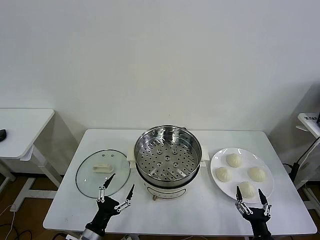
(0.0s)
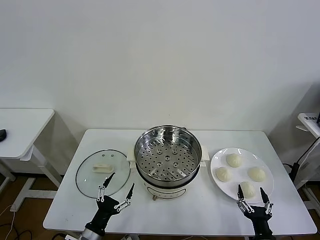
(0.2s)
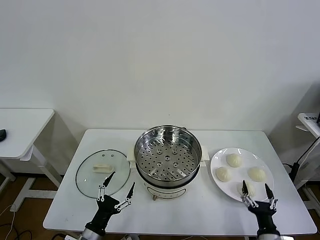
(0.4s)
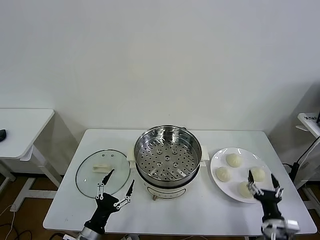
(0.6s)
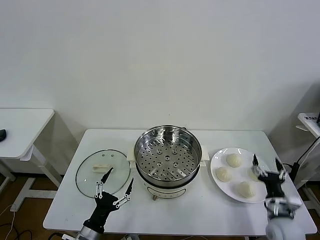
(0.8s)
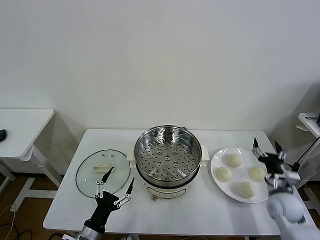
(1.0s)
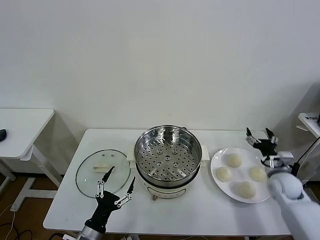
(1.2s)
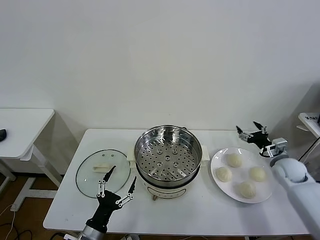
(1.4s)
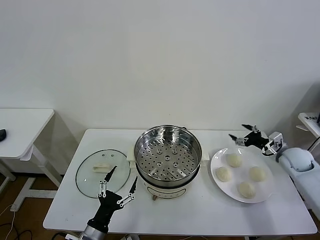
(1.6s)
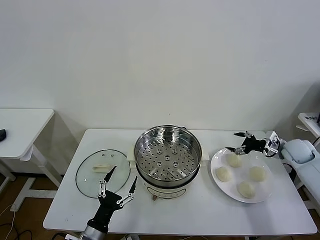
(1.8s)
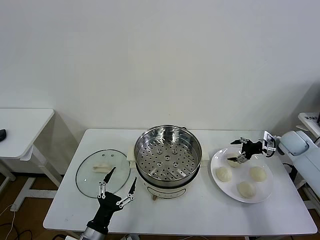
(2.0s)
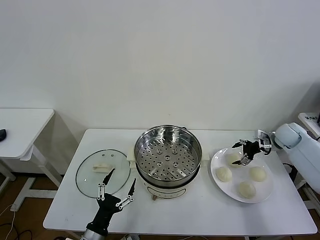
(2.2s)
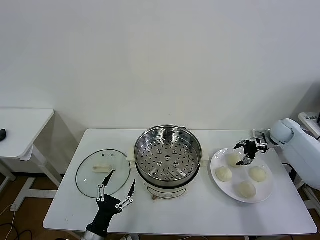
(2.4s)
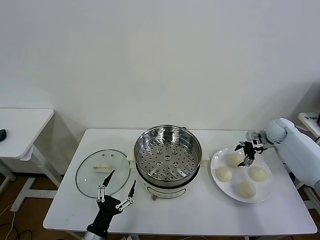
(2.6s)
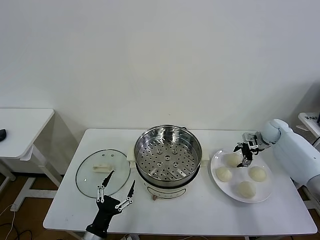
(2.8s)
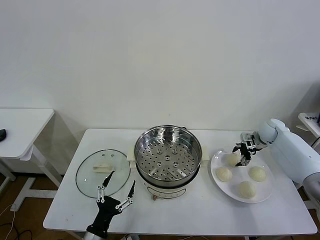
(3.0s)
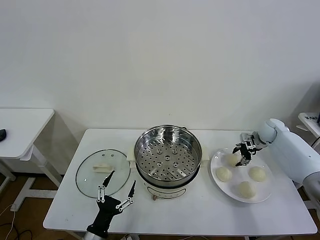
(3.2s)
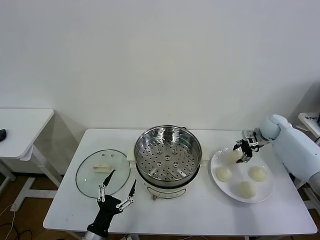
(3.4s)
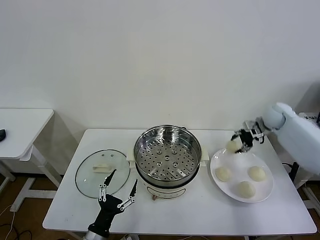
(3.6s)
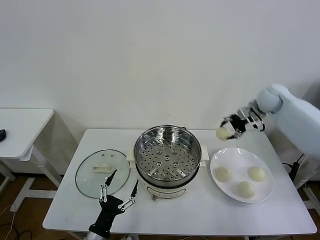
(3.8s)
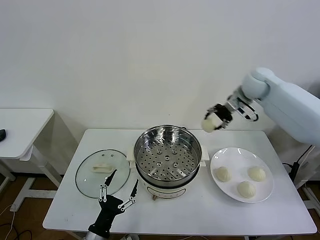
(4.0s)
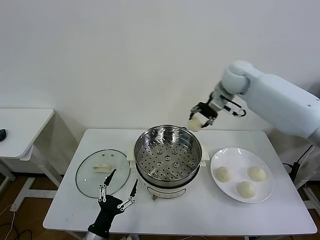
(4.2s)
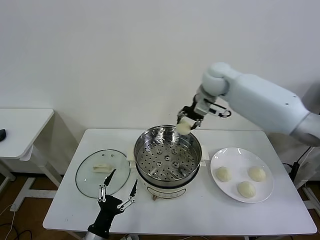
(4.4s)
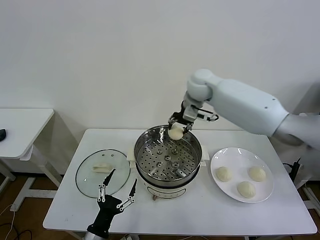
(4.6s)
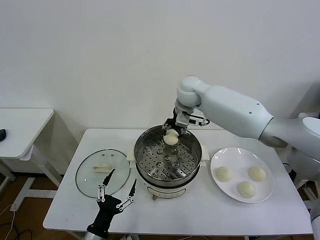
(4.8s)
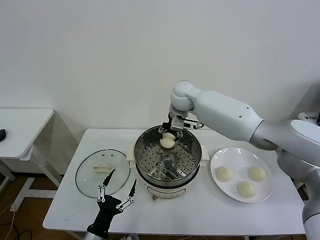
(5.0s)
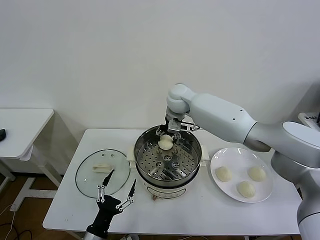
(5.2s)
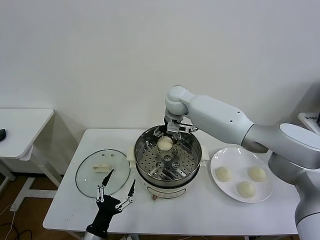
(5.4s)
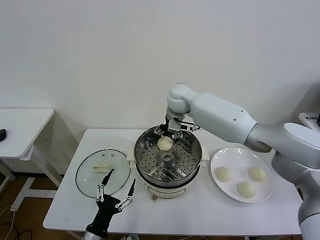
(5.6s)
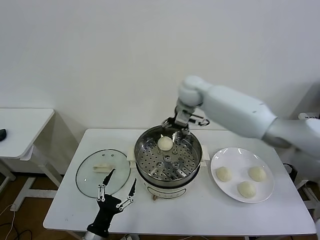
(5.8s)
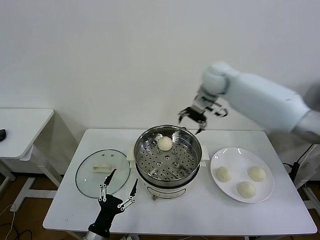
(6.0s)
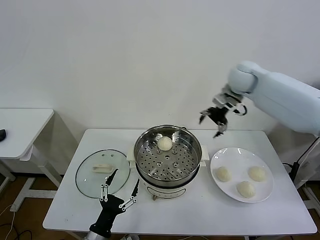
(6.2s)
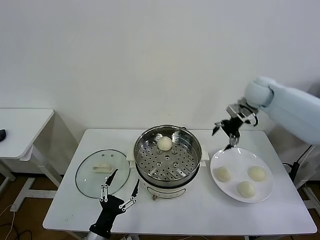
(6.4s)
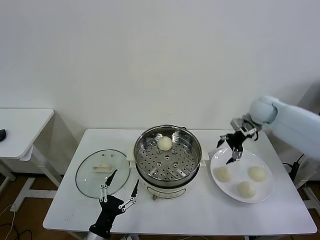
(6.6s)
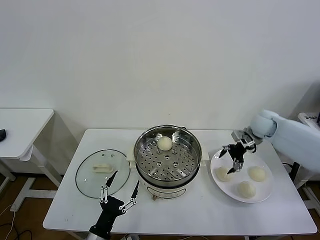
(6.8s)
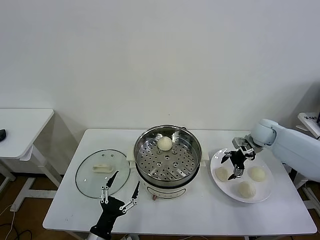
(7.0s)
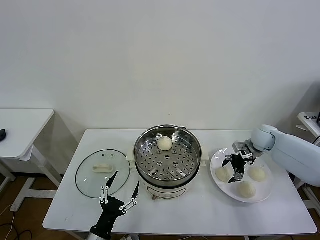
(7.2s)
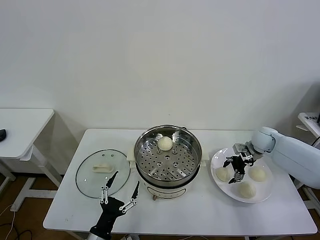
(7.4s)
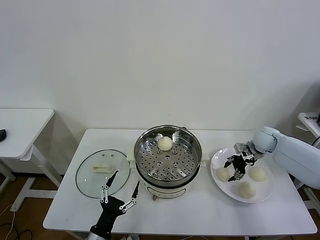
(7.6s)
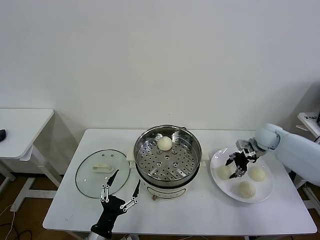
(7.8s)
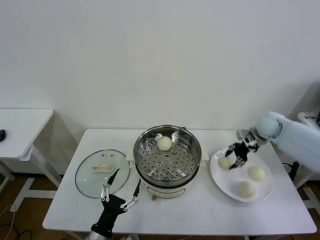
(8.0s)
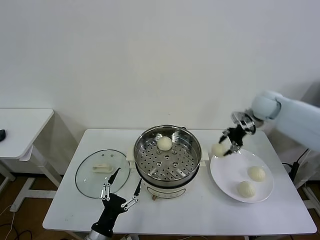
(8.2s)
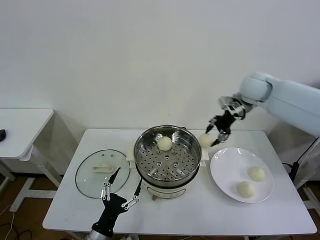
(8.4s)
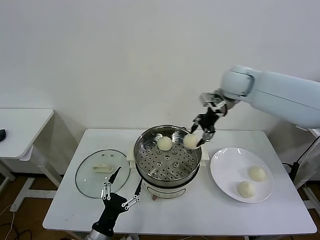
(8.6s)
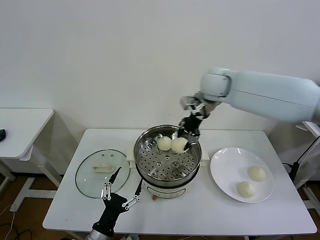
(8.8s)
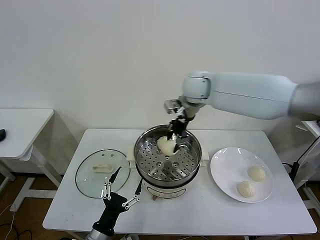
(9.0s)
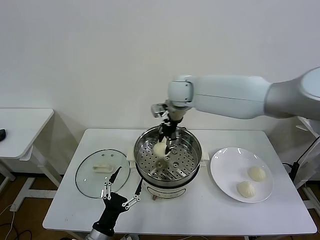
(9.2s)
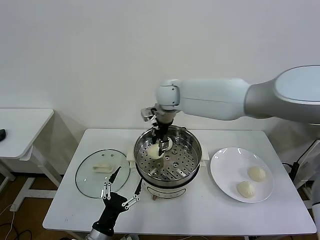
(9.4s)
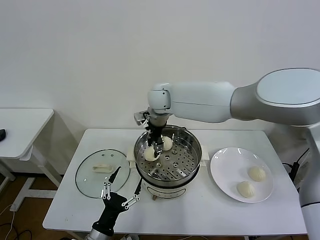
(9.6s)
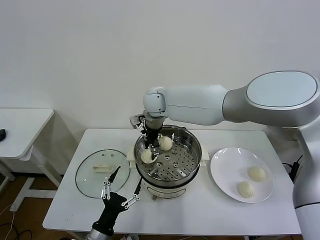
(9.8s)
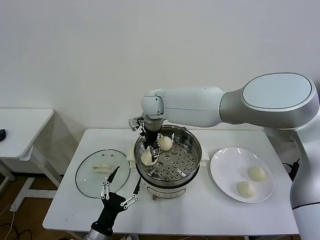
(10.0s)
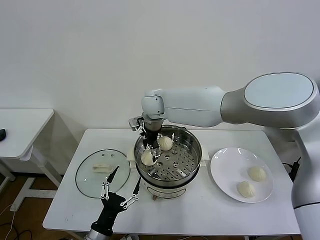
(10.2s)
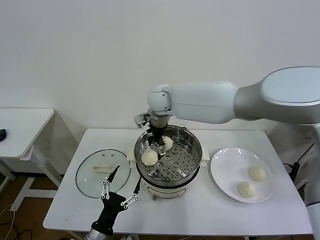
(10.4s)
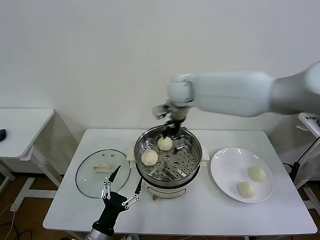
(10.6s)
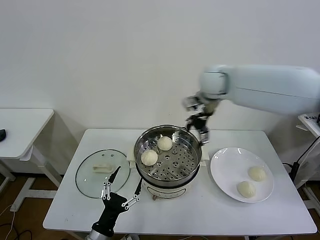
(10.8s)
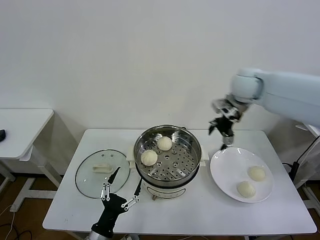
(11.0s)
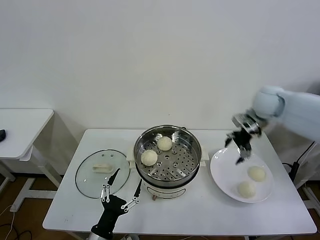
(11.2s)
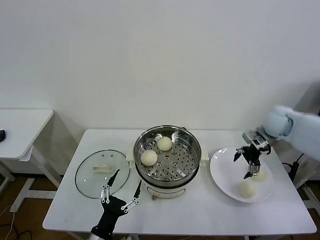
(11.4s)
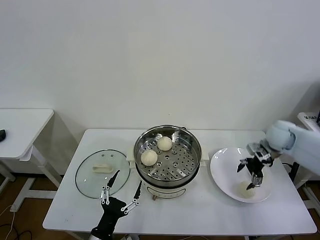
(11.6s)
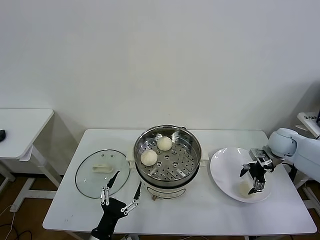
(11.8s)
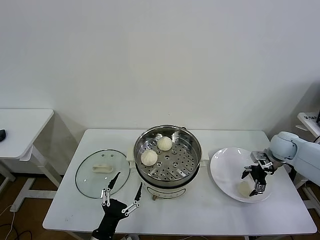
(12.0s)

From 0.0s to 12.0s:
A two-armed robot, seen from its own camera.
Task of the whole recording: take steamed baozi put them in steamer then cover it.
Step, from 0.0s to 3.2s: Grasp the baozi in the plate with right gripper.
Step, from 3.4s to 5.4s: Place the baozi on the steamer with right gripper.
Step, from 5.6s to 7.6s: Grasp the baozi in the plate with right gripper.
Step, from 8.0s to 10.2s: Place the baozi on the steamer with right gripper.
From 1.6s to 3.0s: The right gripper heads forward, covering some 10 cm, and closes up.
From 3.0s to 4.4s: The right gripper is displaced to the left and upward by roughly 35 cm, and closes up.
From 4.4s to 6.0s: The right gripper shifts roughly 5 cm to the right, and opens its fingers.
From 6.0s to 7.6s: The right gripper moves downward and to the right, roughly 30 cm, and closes.
From 7.6s to 9.0s: The right gripper shifts roughly 40 cm to the left and upward.
From 9.0s to 10.4s: The right gripper shifts approximately 5 cm to the left, and opens up.
From 10.4s to 12.0s: The right gripper is displaced to the right by approximately 40 cm.

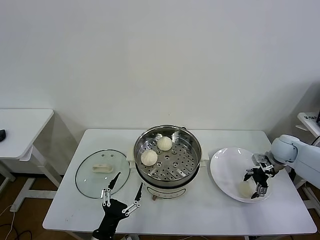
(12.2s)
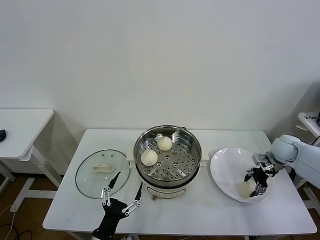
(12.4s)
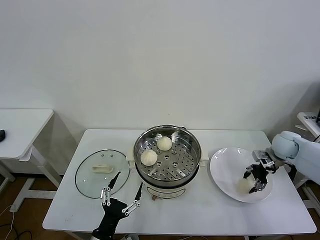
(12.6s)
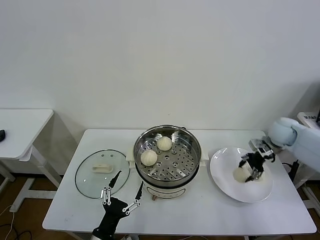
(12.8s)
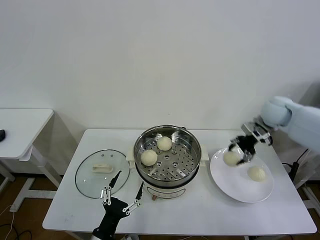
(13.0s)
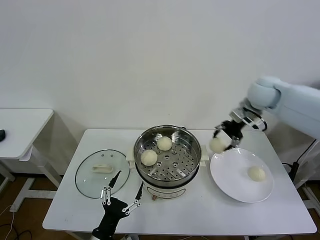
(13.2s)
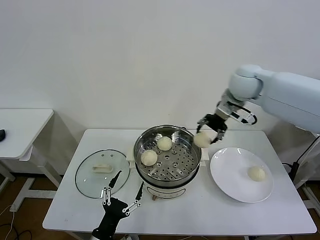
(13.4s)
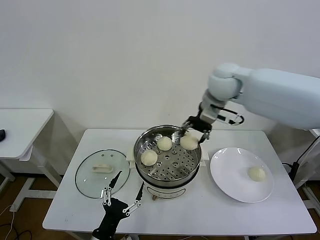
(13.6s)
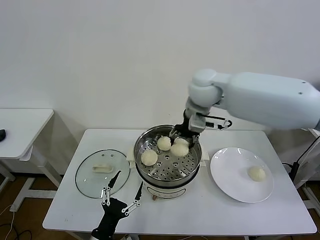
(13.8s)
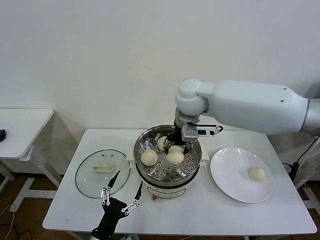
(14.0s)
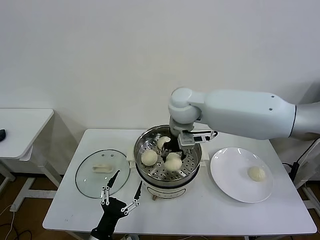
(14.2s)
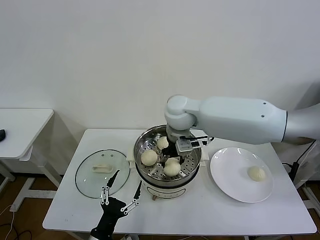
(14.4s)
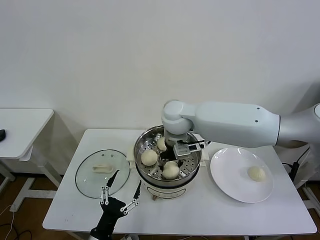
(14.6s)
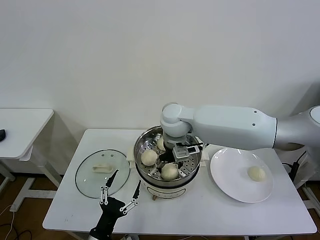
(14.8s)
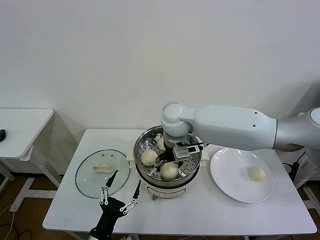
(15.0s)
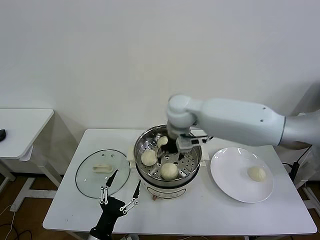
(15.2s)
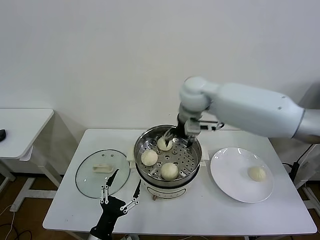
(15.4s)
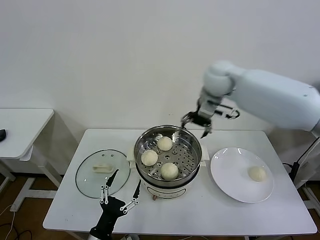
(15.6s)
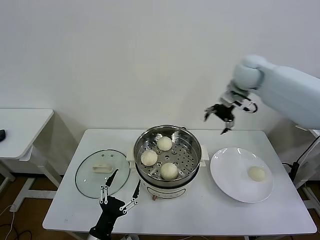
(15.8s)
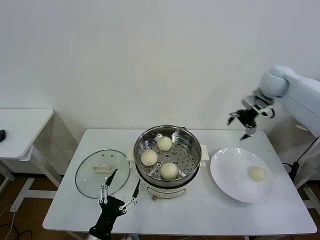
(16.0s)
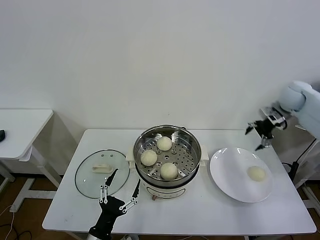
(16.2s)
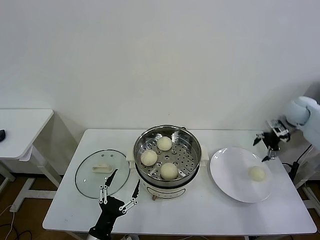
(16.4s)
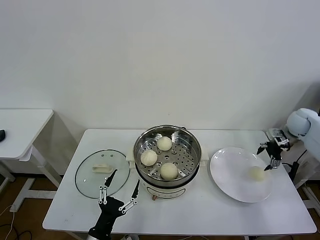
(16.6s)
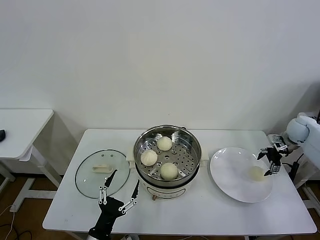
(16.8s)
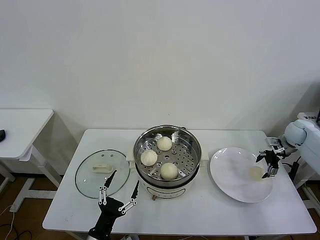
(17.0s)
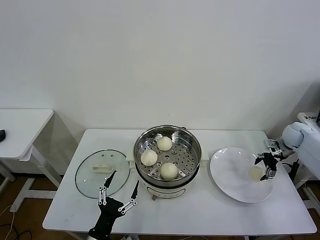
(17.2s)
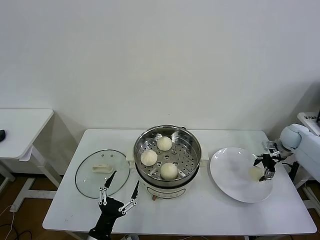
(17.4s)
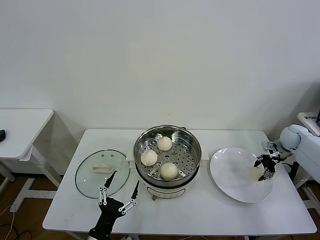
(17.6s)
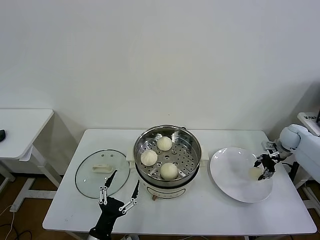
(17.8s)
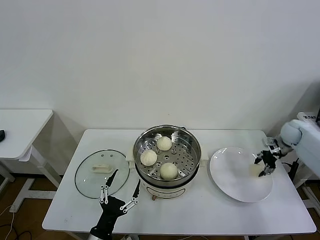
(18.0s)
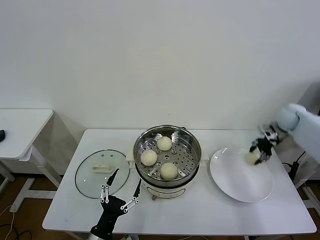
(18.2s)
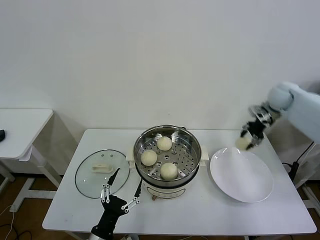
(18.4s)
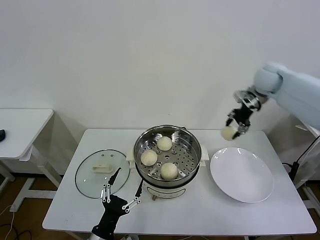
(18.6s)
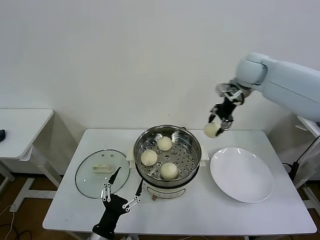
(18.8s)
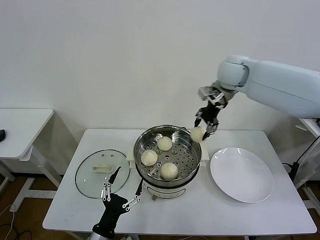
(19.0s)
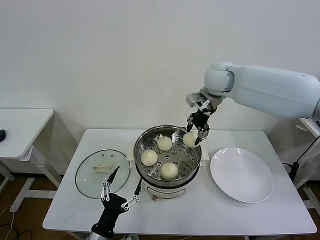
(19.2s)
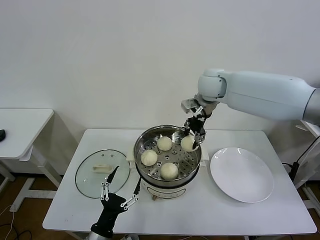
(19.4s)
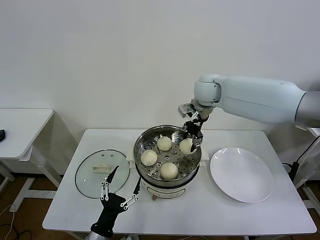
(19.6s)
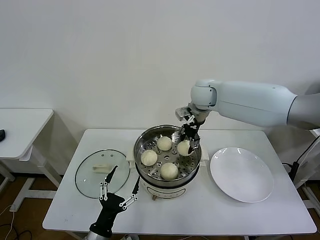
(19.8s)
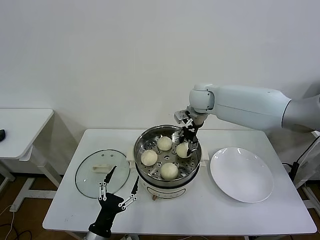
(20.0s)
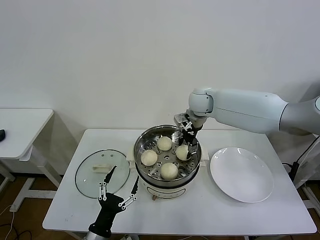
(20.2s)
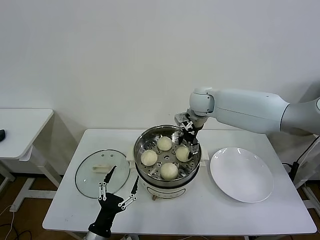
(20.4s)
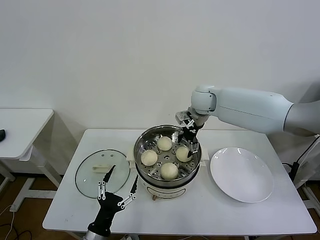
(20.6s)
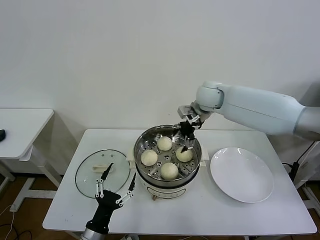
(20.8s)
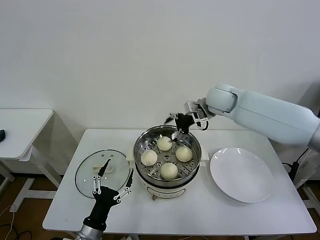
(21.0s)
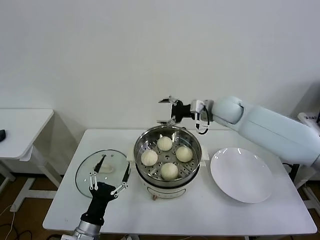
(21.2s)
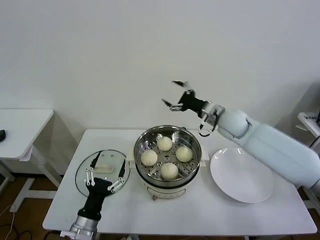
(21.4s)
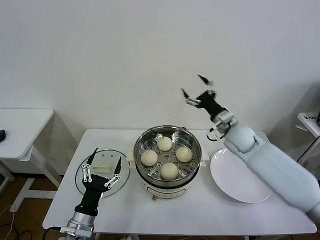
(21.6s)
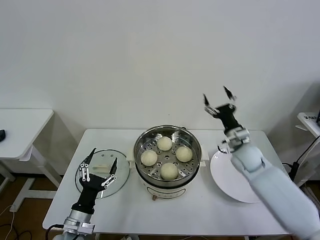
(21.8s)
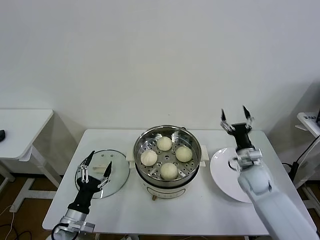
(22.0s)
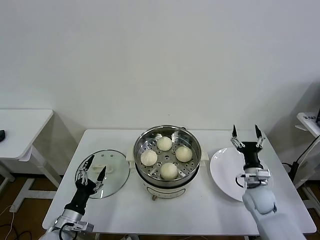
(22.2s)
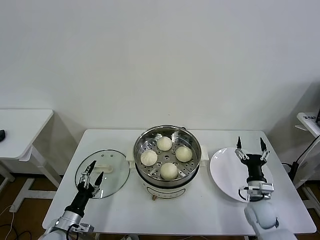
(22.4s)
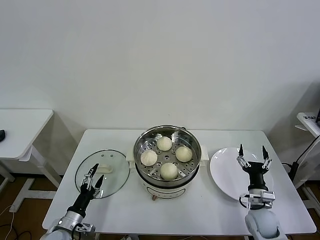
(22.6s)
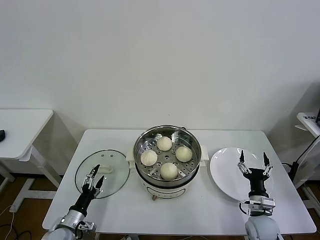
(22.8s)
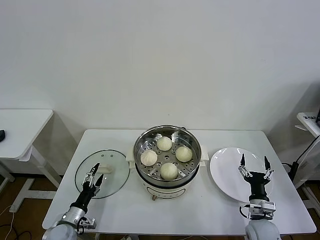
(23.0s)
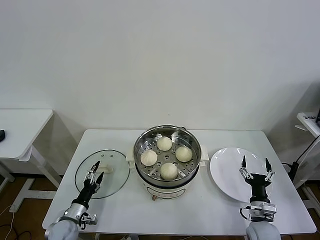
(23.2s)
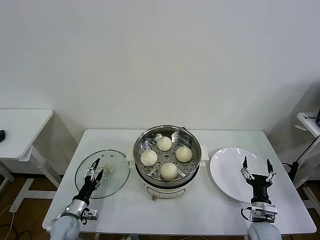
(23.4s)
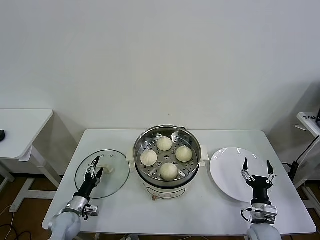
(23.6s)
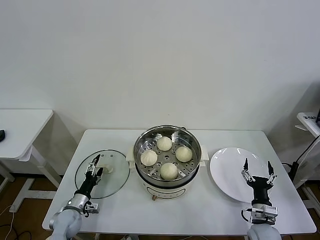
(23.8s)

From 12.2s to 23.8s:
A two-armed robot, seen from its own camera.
Task of the whole recording: take steamed baozi put them in steamer then cover it.
Step, from 12.6s to 14.8s: Place the baozi on the steamer with right gripper.
Step, from 15.0s to 17.6s: Grasp the baozi in the plate with right gripper.
Step, from 17.8s to 20.4s: Place the baozi on the steamer with right gripper.
From 12.2s to 13.6s: The right gripper heads to the left and upward, covering approximately 40 cm, and closes up.
From 13.6s to 15.0s: The right gripper shifts about 15 cm to the left and downward, and opens up.
From 15.0s to 16.6s: The right gripper heads to the right, covering roughly 50 cm.
From 16.6s to 18.0s: The right gripper closes its fingers.
From 18.0s to 19.4s: The right gripper moves to the left and upward, approximately 40 cm.
From 19.4s to 21.0s: The right gripper changes place by roughly 5 cm, and opens.
From 21.0s to 22.4s: The right gripper is displaced downward, backward and to the right by approximately 40 cm; the left gripper goes roughly 10 cm to the left and forward.
From 22.4s to 23.8s: The left gripper heads forward and downward, covering about 10 cm. Meanwhile the right gripper moves backward, approximately 5 cm.
